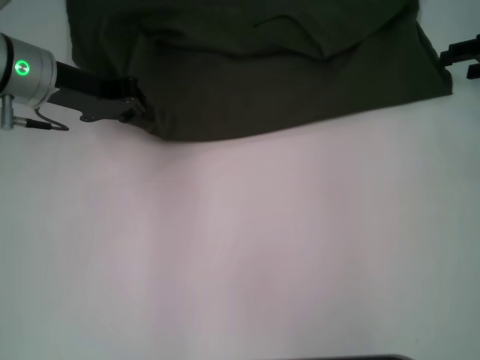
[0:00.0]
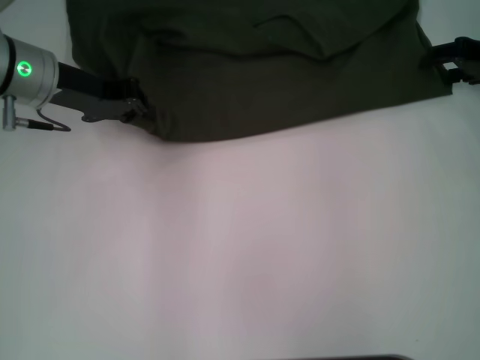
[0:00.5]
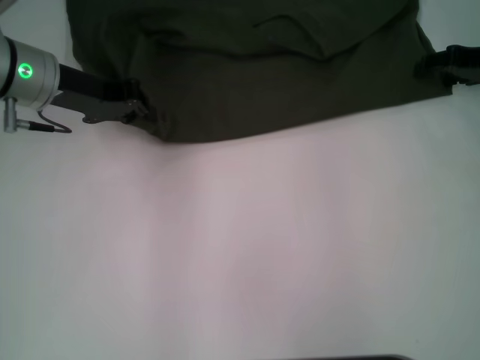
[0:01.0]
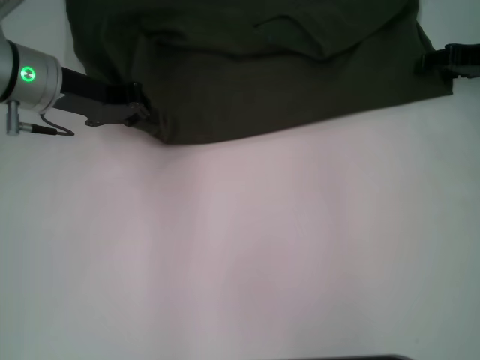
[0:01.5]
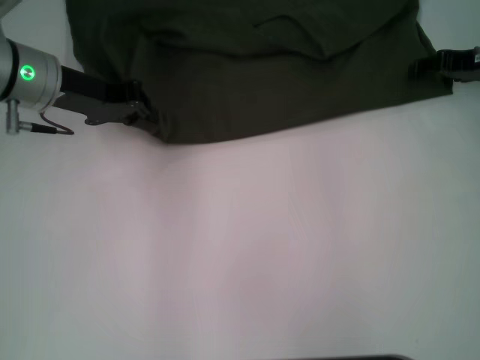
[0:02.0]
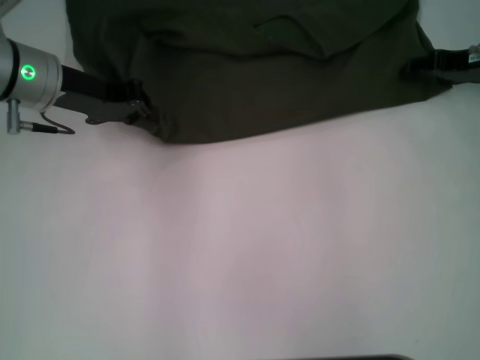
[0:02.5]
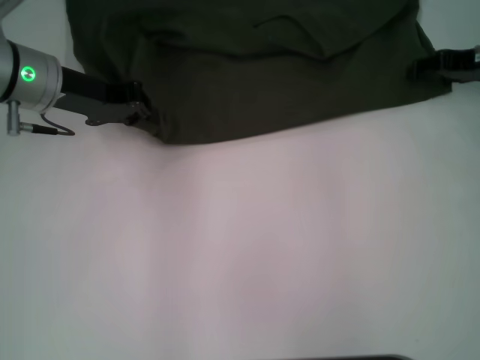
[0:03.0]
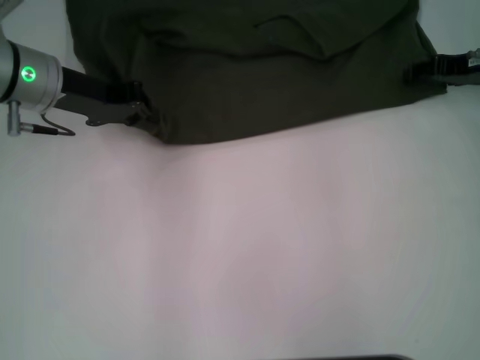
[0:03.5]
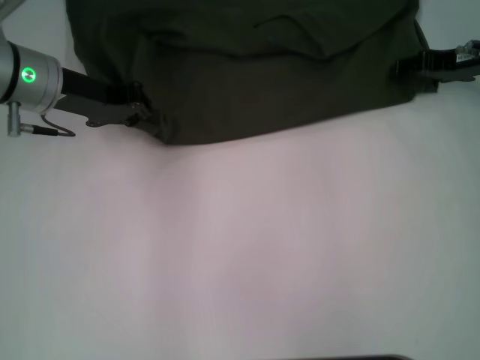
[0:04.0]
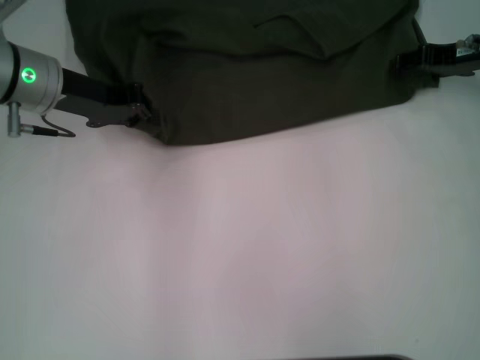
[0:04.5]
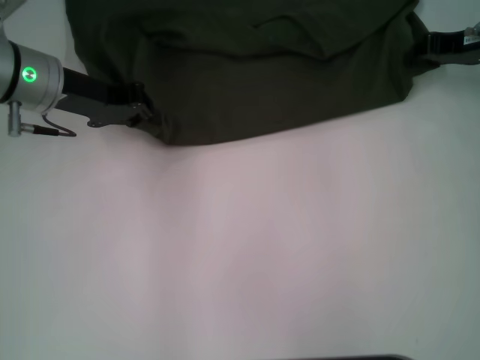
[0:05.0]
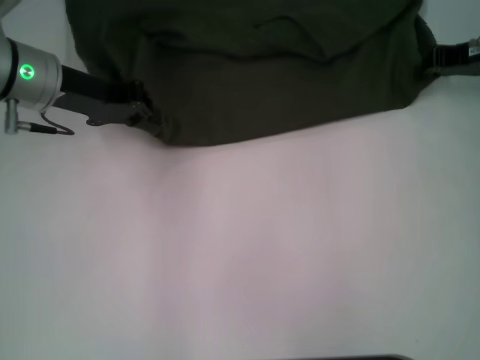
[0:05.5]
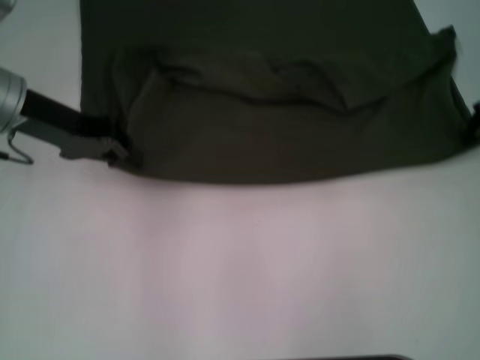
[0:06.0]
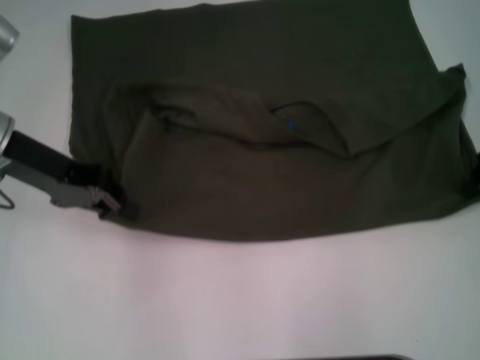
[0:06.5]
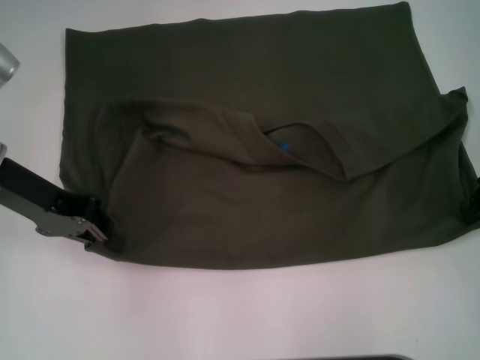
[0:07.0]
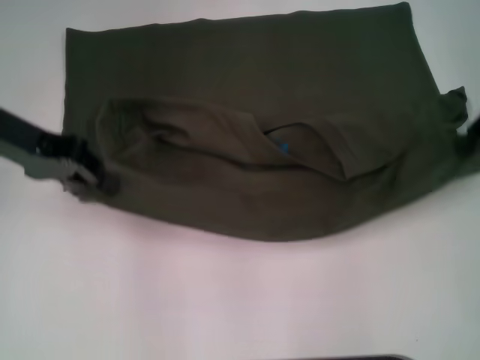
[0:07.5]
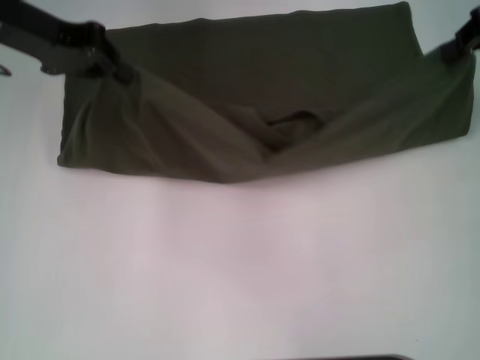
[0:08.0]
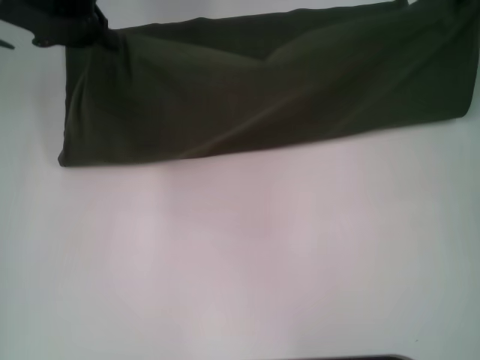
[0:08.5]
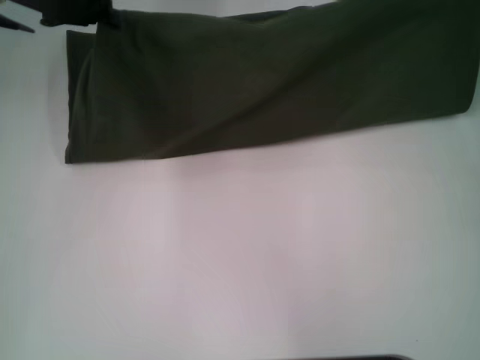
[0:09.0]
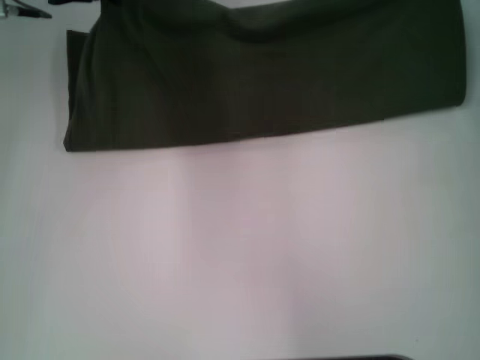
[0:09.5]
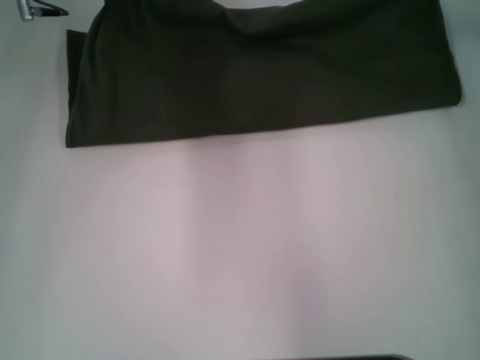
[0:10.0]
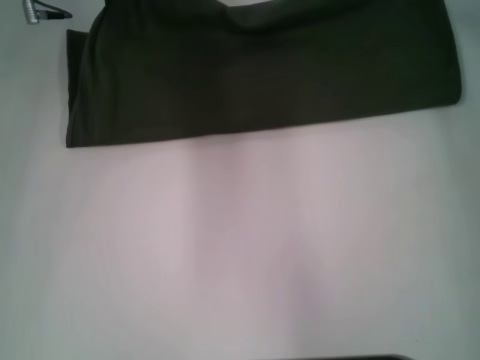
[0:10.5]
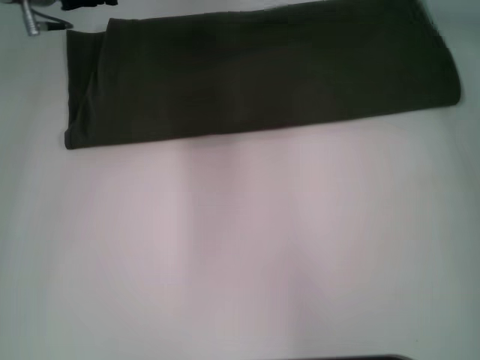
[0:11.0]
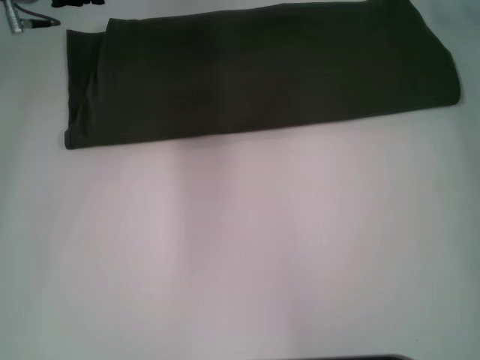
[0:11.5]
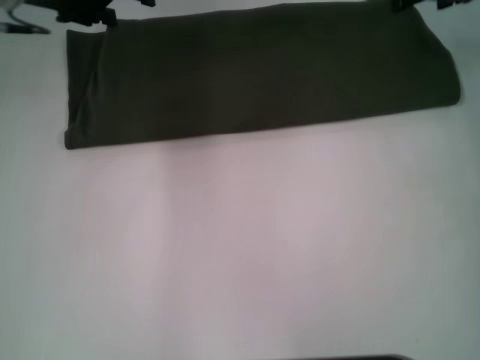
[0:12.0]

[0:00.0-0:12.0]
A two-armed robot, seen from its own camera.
Step, 0:00.0 to 0:07.0: Pull the clothes with your left hand.
Step, 0:00.0 to 0:07.0: Pull the clothes with your right hand.
Step, 0:07.5 to 0:11.5: Fold the clothes with your right hand.
0:00.0 to 0:04.0: The grippers stay close to where they were, moving slightly.
0:04.0 to 0:06.0: The right gripper ends up approximately 5 cm from where it was, and closes its fingers.
0:06.0 to 0:08.0: Both grippers travel together upward, approximately 10 cm.
0:08.0 to 0:10.0: The left gripper goes approximately 5 cm forward. The right gripper moves downward and forward, some 10 cm.
0:10.0 to 0:12.0: The right gripper opens up; the left gripper ends up approximately 5 cm from where it was, and opens.

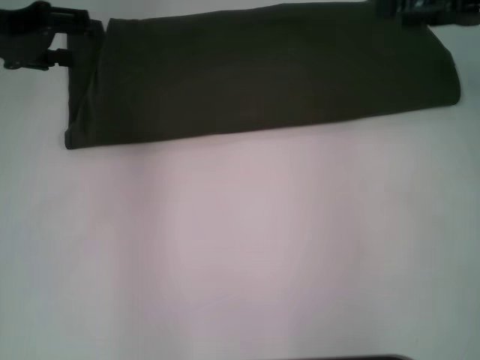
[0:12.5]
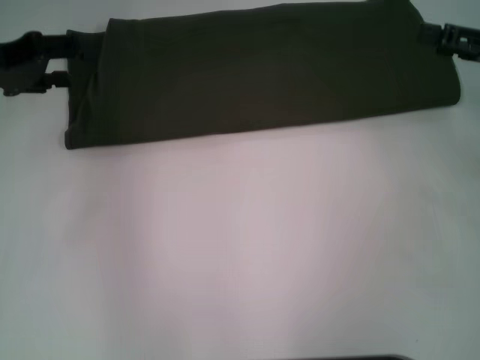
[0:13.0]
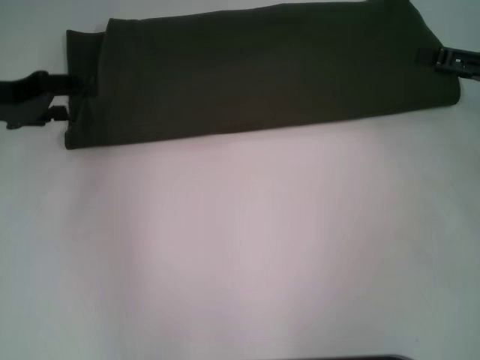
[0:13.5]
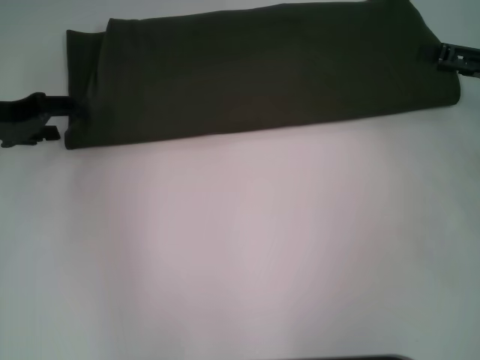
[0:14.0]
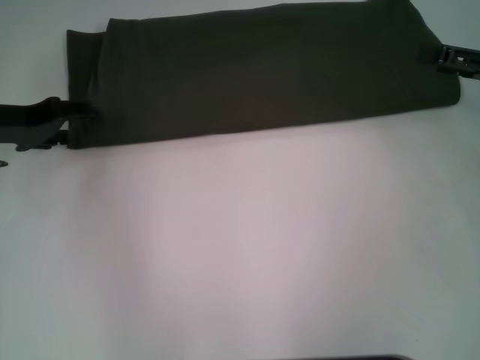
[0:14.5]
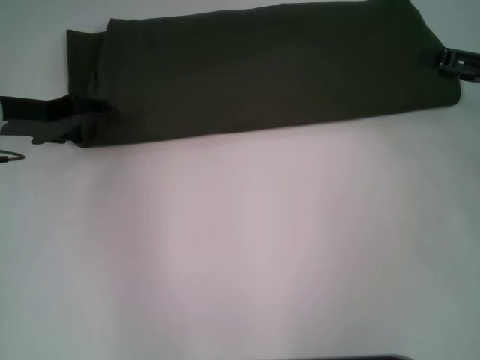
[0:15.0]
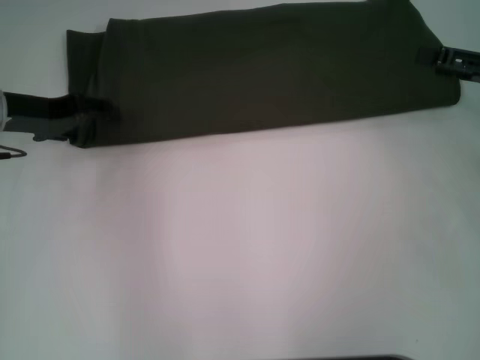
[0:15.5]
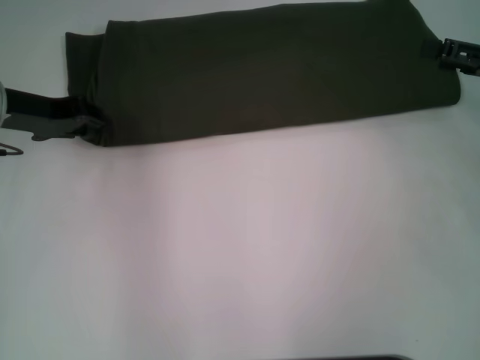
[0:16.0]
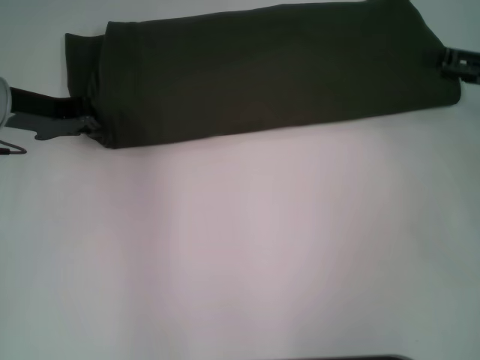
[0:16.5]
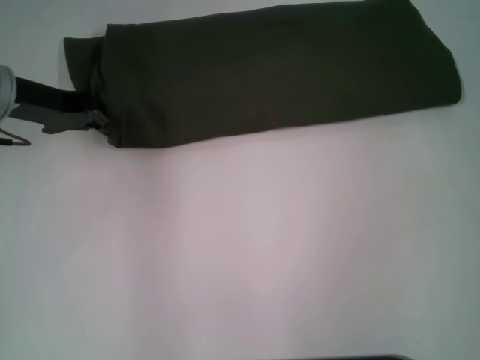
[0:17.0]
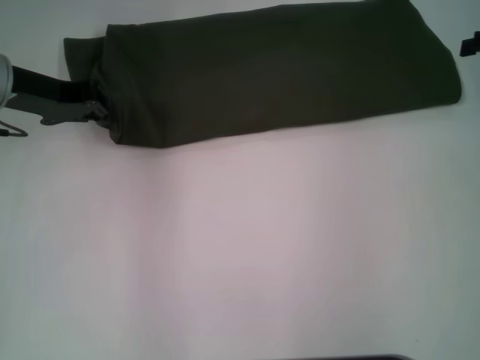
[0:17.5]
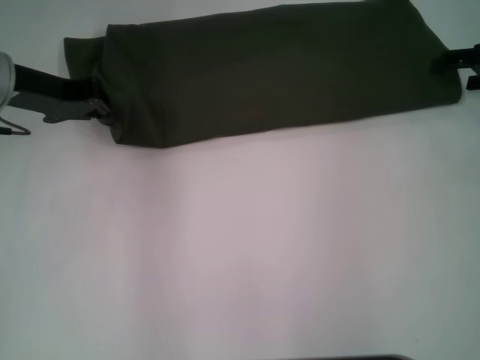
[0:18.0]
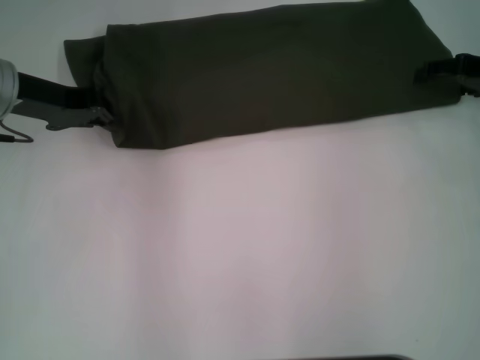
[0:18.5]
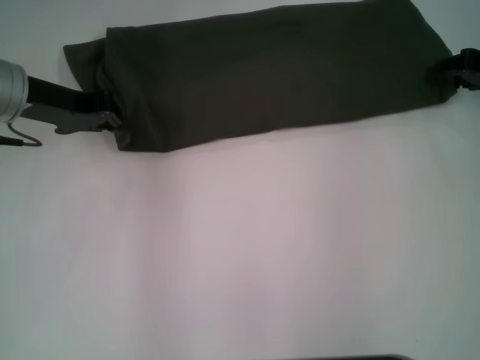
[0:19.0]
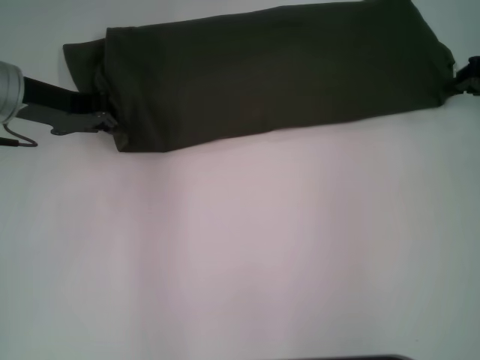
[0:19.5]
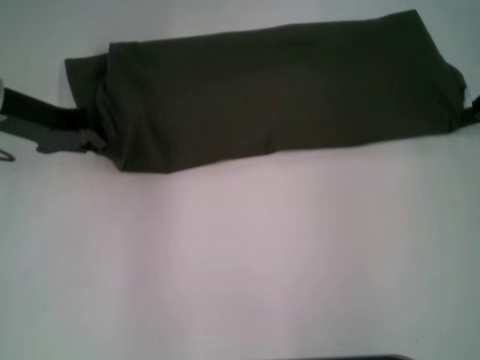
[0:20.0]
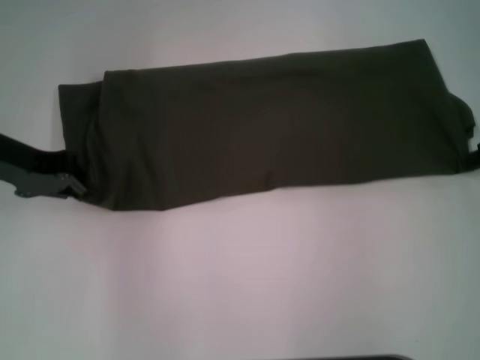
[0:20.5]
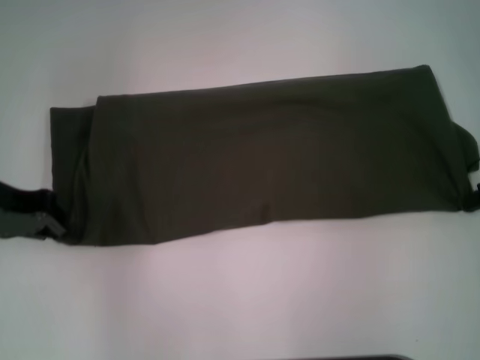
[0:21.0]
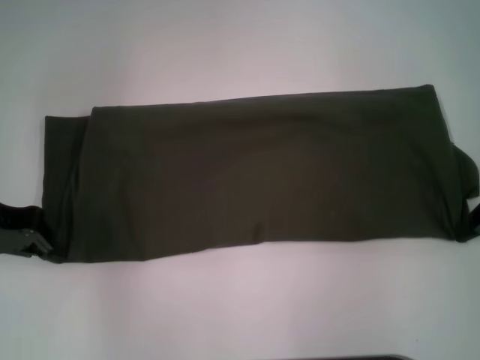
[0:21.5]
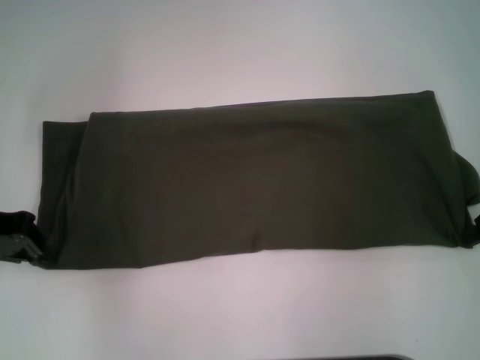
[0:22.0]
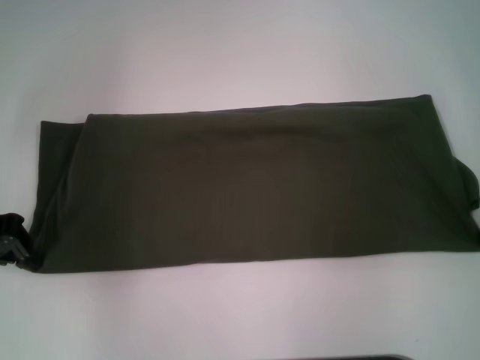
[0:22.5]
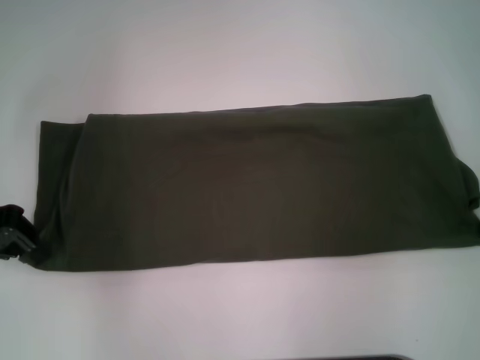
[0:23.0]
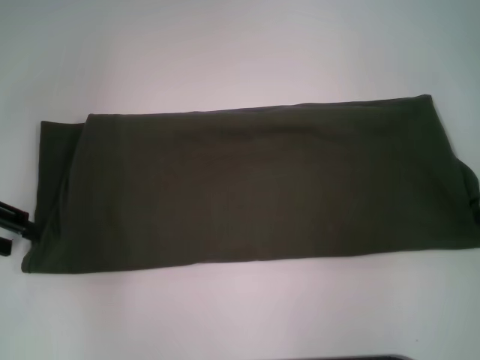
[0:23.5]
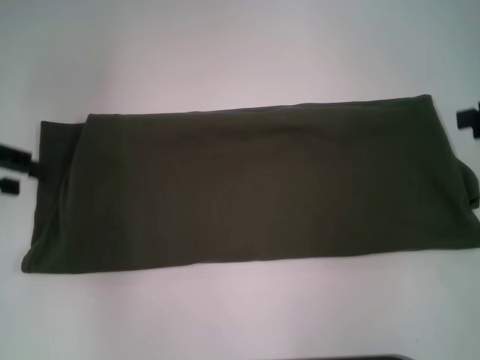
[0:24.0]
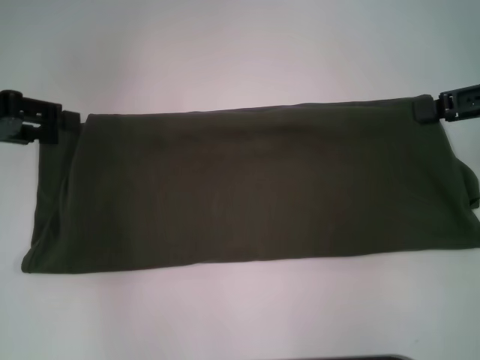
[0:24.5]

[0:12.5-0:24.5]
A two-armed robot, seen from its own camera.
0:12.5 to 0:14.5: The right gripper heads downward and backward, covering about 10 cm; the left gripper moves downward, approximately 10 cm.
0:14.5 to 0:16.5: The left gripper closes its fingers.
0:16.5 to 0:18.5: The right gripper moves forward, approximately 5 cm.
0:18.5 to 0:20.5: The right gripper shifts by about 5 cm, and closes.
0:20.5 to 0:22.5: The left gripper ends up approximately 5 cm from where it was.
0:22.5 to 0:24.5: The two grippers go about 5 cm upward. The right gripper opens, while the left gripper opens its fingers.

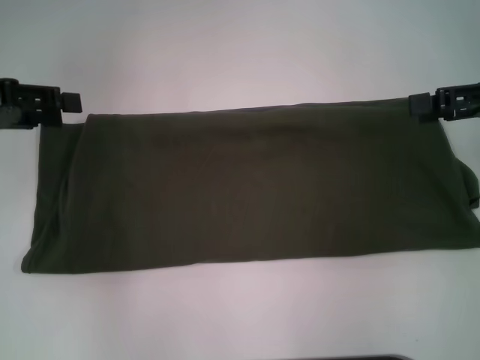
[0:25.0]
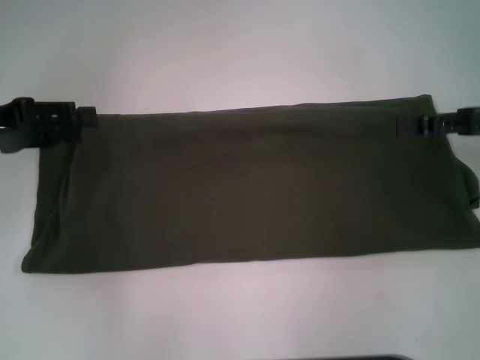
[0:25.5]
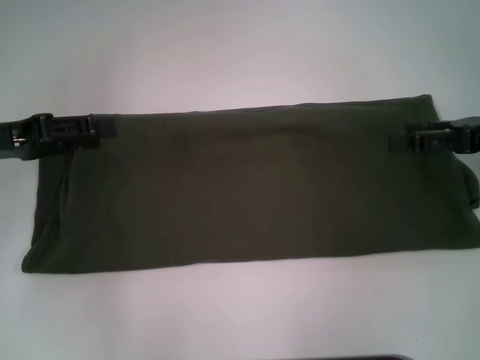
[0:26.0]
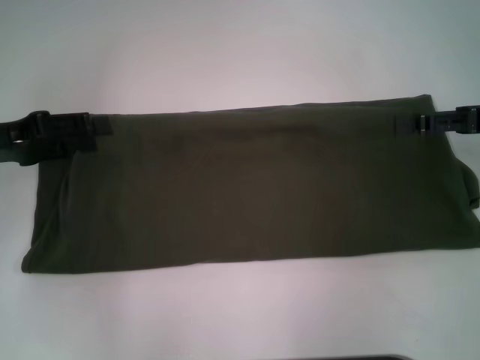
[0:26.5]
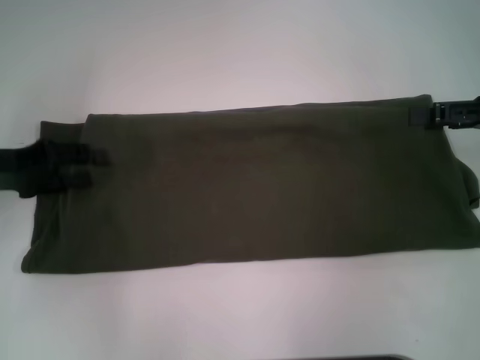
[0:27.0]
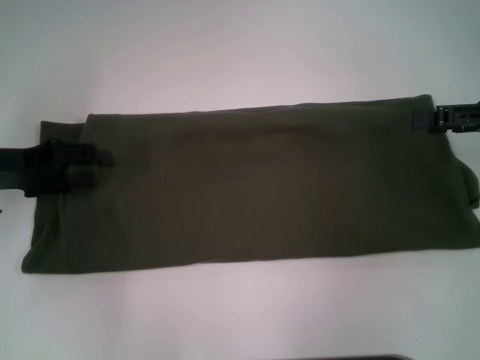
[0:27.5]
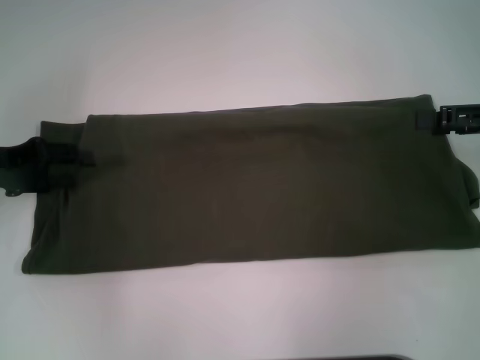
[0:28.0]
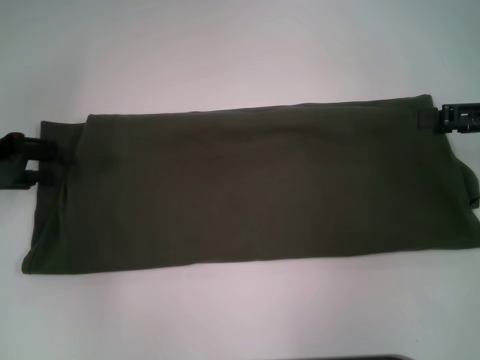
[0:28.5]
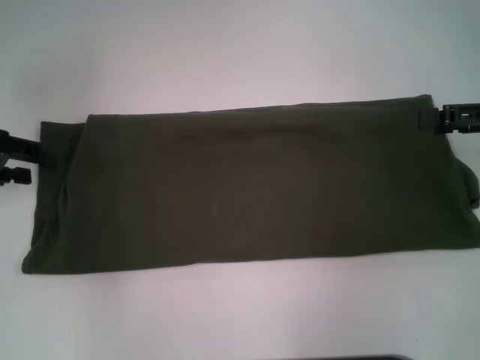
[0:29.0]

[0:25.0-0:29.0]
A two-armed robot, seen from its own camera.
0:25.0 to 0:27.0: The left gripper goes about 5 cm downward.
0:27.0 to 0:29.0: The left gripper ends up about 5 cm from where it was.
